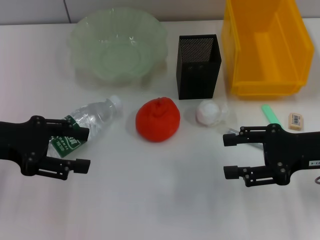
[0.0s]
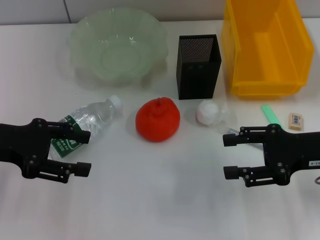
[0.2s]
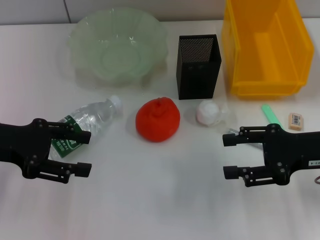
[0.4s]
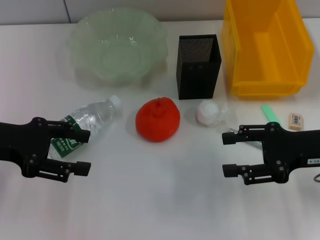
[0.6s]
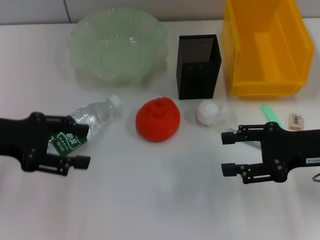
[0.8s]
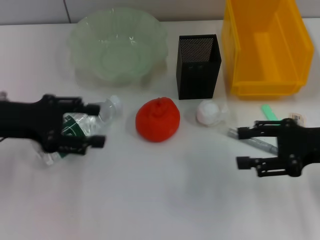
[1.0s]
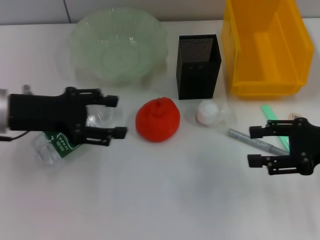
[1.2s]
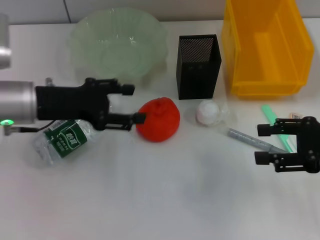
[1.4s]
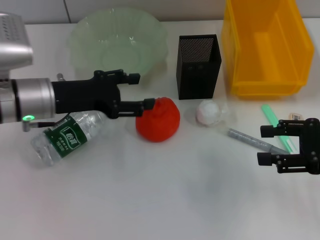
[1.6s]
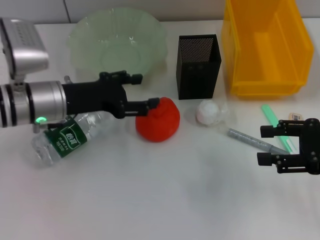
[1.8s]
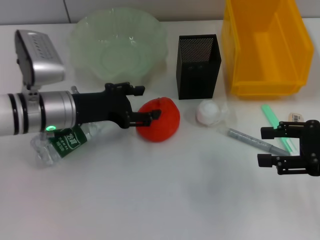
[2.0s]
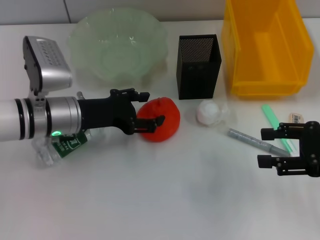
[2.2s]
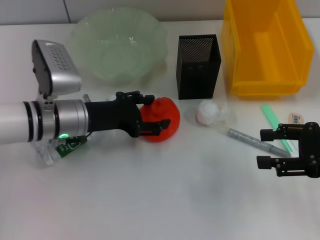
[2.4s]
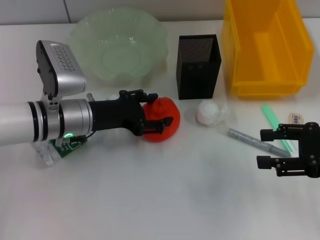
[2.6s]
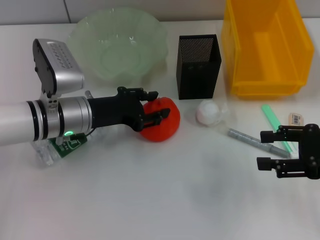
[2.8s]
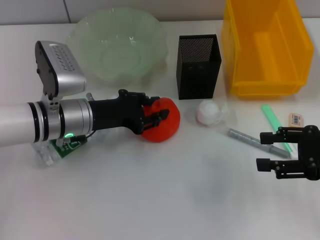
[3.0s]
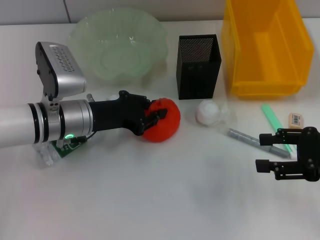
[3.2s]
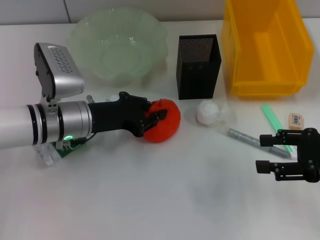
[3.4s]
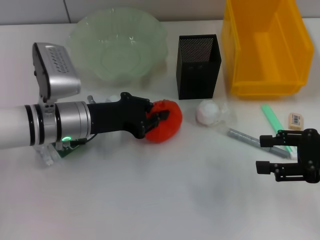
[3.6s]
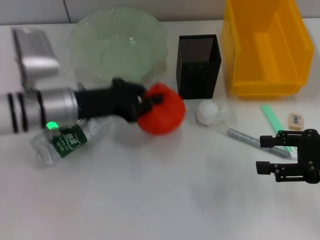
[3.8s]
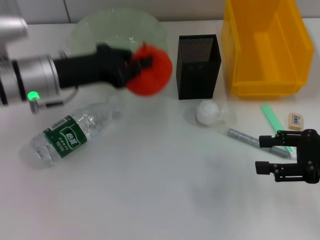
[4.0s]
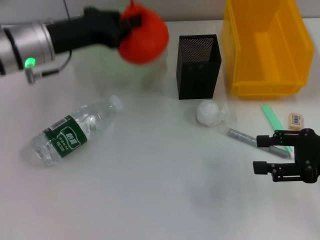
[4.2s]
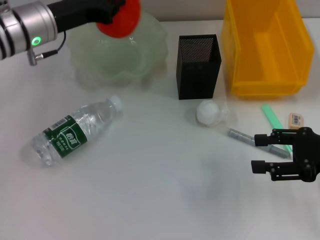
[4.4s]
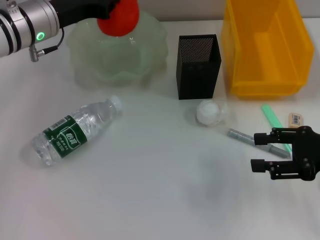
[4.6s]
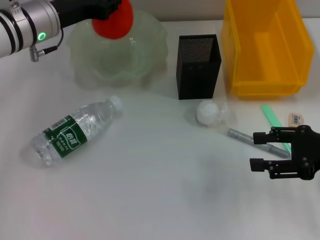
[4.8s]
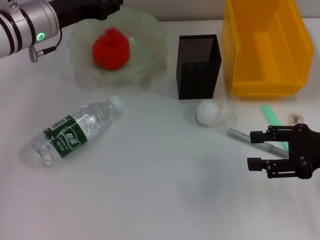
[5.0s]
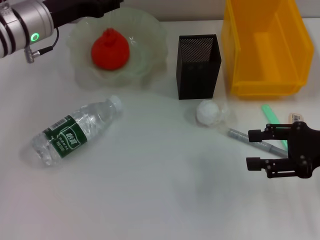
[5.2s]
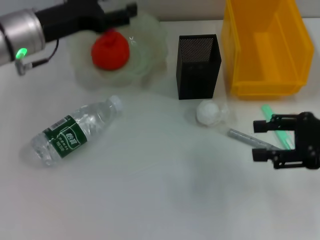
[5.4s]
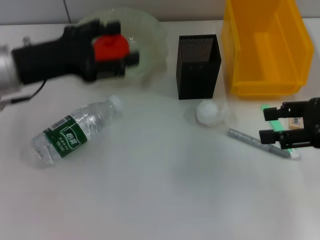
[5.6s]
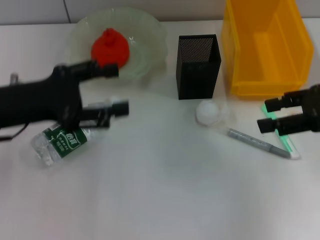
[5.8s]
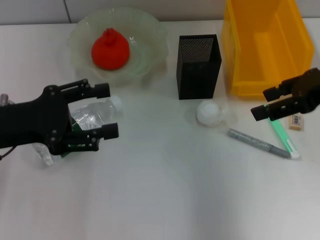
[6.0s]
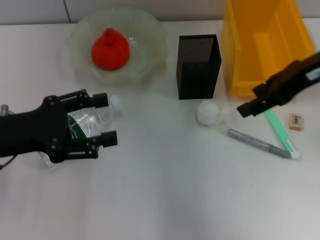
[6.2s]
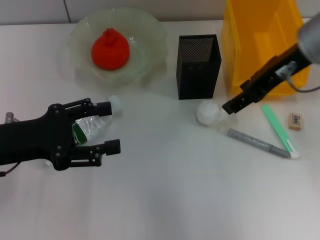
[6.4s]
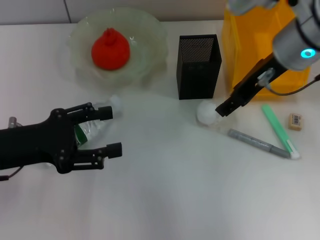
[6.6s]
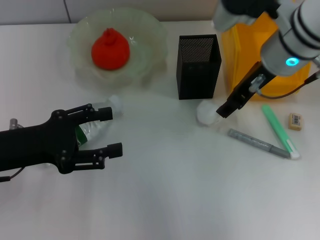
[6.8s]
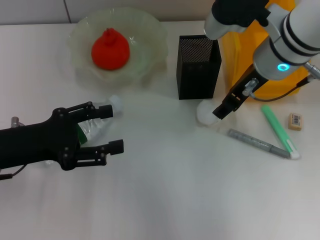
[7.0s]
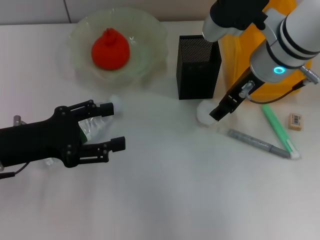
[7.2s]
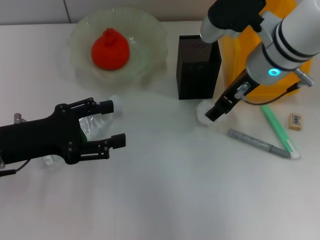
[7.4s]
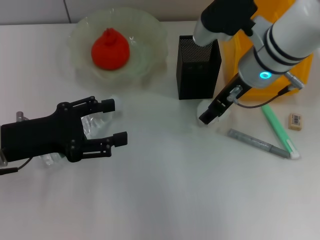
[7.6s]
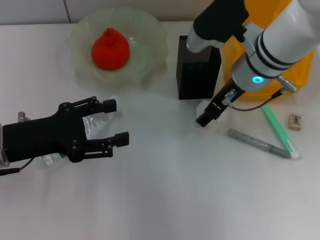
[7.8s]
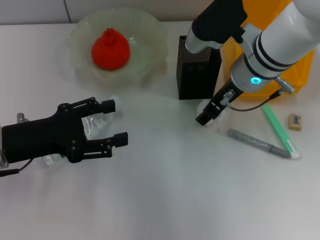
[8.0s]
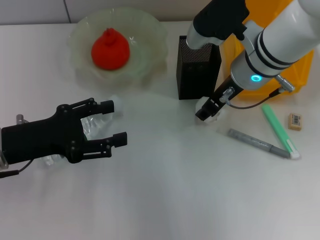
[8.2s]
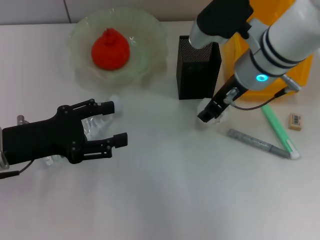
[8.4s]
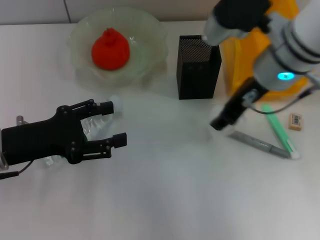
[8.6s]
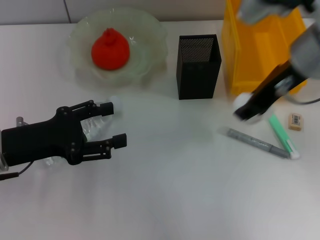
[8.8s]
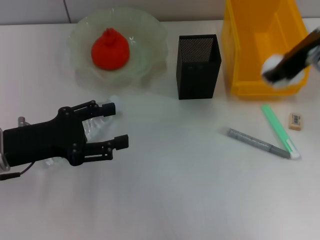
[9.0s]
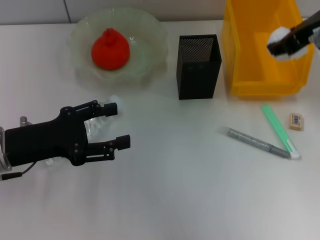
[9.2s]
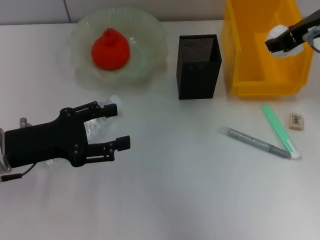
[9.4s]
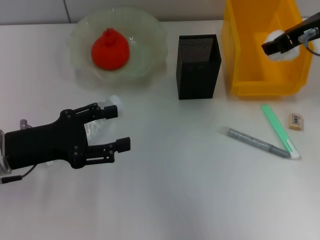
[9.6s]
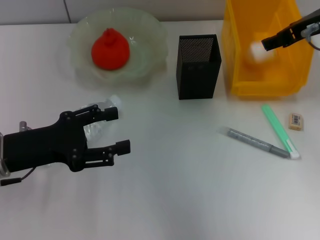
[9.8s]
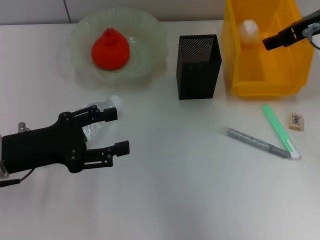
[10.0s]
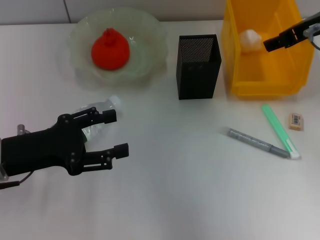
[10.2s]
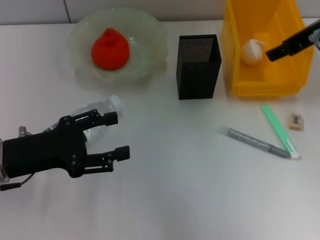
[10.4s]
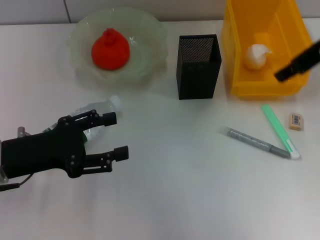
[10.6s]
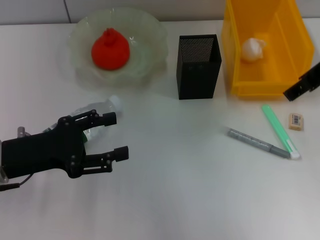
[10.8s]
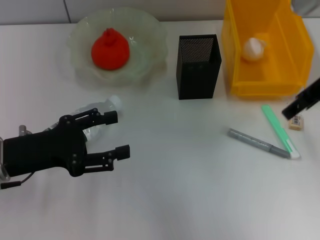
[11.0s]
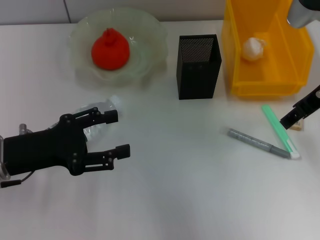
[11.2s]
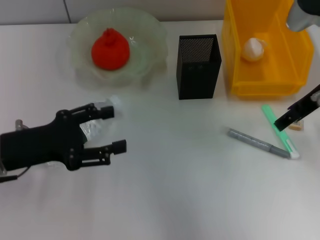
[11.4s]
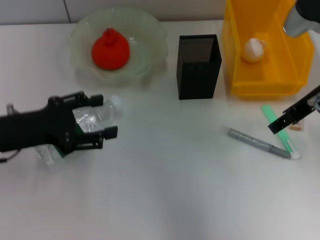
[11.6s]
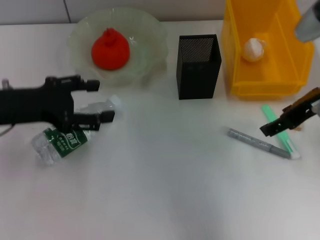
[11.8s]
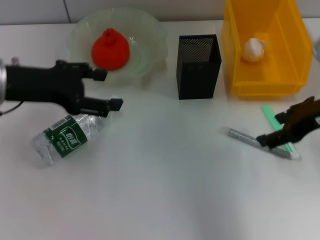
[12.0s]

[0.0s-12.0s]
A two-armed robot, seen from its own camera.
Step, 0.0s to 3.2s: Grab the orange with the left hand.
Step, 3.6s to 4.8s: Place the orange into the fruit bowl with the left hand.
Step, 5.2s to 8.0s: Grab the paper ball with the right hand.
Step, 8.2s to 9.8s: Place the paper ball into the trash can with the right hand.
0.0s to 1.6s: The left gripper travels to the right and forward by about 10 cm.
1.6s to 3.0s: The left gripper ends up roughly 5 cm from where it was.
3.0s to 4.4s: The left gripper goes about 10 cm upward and forward, and closes its fingers.
4.4s to 6.0s: The right gripper goes some 15 cm upward and forward, while the left gripper travels backward and to the left by some 15 cm, and opens its fingers.
6.0s to 7.6s: The right gripper heads to the left, downward and forward, covering roughly 15 cm.
7.6s to 9.0s: The right gripper moves upward and to the right, approximately 15 cm.
9.0s to 10.4s: The right gripper opens its fingers.
10.4s to 12.0s: The left gripper travels upward and forward by some 10 cm, while the right gripper moves downward and backward, some 10 cm.

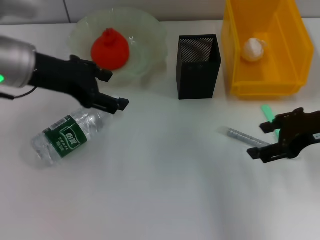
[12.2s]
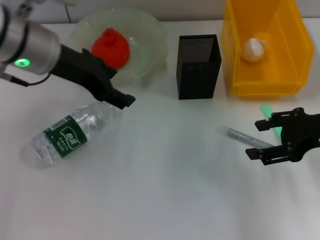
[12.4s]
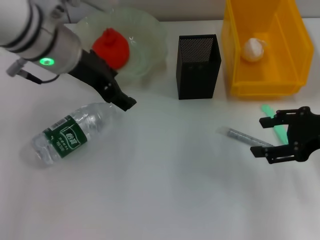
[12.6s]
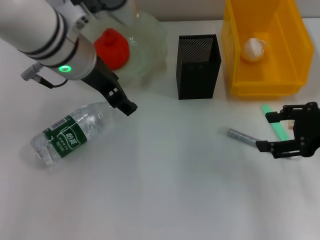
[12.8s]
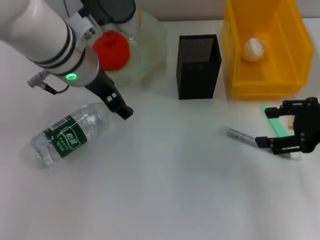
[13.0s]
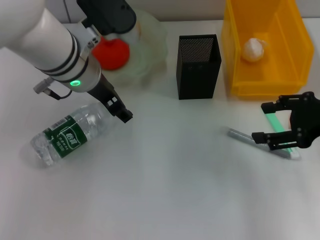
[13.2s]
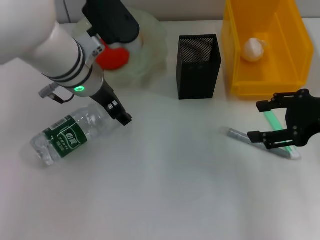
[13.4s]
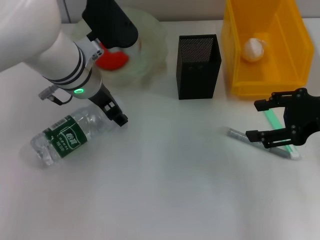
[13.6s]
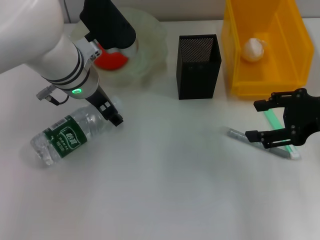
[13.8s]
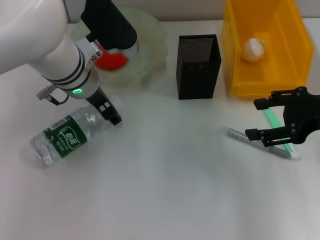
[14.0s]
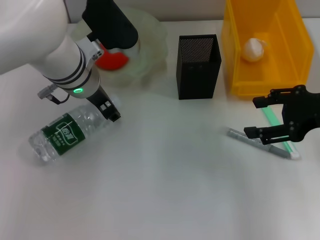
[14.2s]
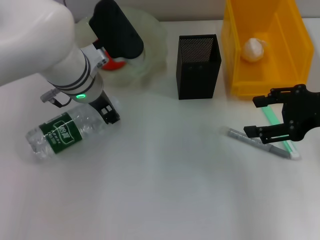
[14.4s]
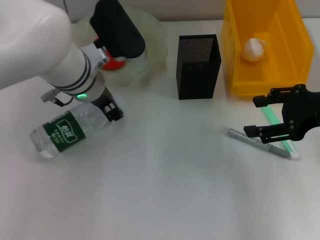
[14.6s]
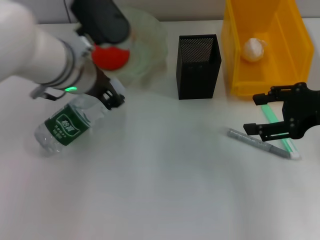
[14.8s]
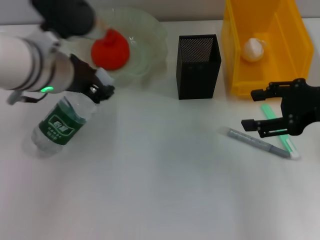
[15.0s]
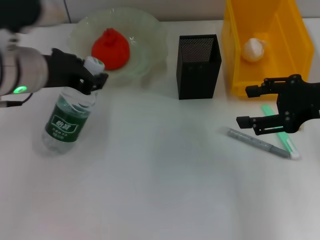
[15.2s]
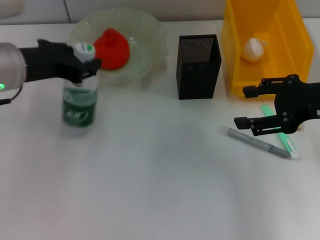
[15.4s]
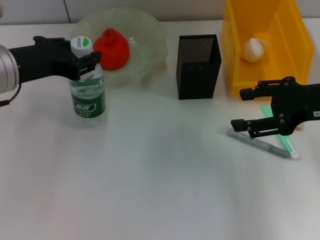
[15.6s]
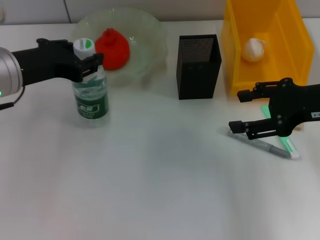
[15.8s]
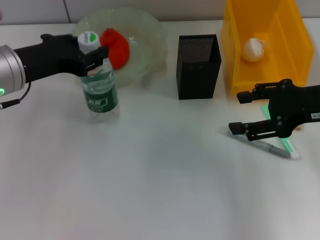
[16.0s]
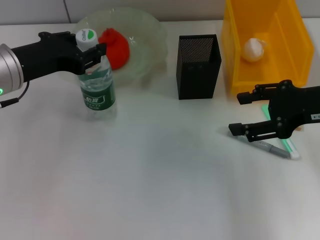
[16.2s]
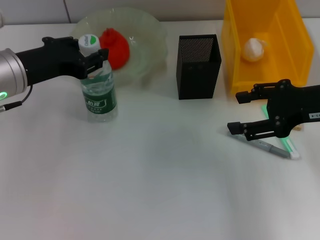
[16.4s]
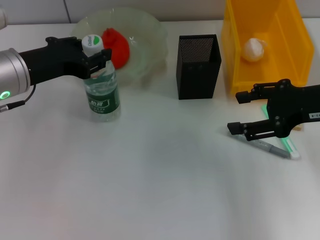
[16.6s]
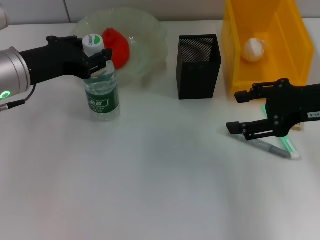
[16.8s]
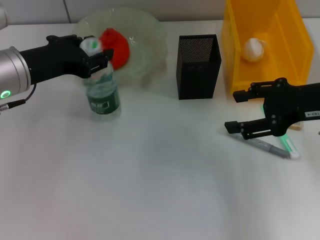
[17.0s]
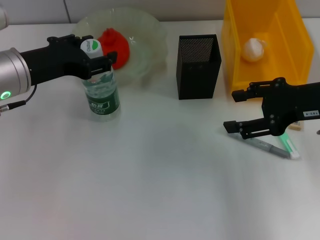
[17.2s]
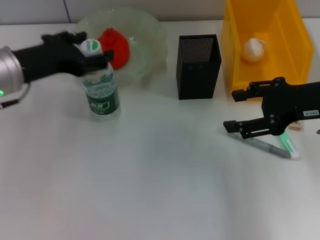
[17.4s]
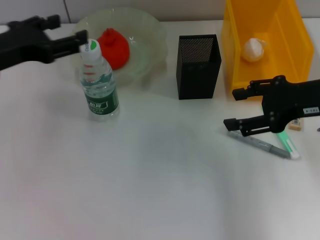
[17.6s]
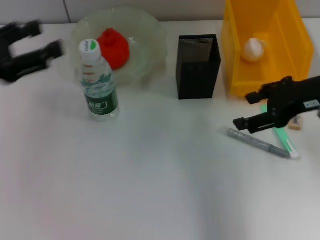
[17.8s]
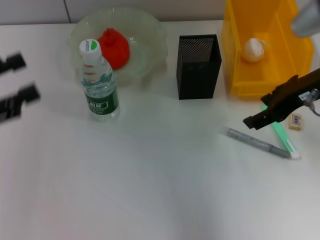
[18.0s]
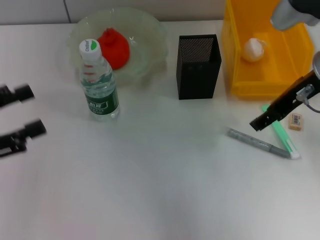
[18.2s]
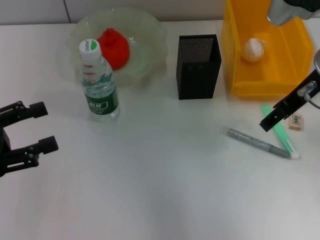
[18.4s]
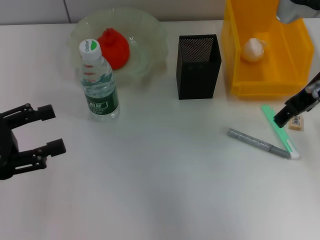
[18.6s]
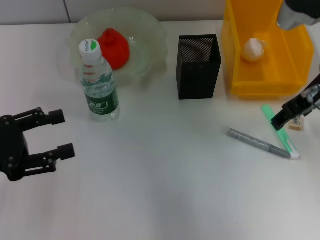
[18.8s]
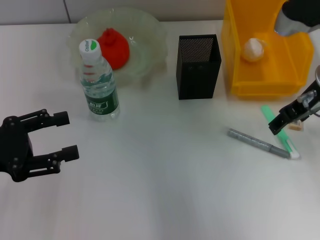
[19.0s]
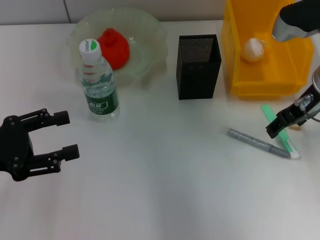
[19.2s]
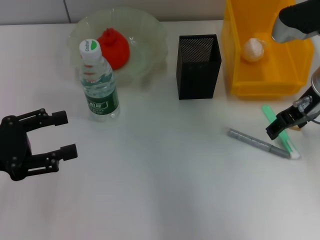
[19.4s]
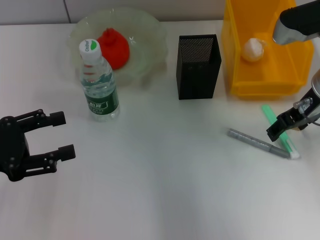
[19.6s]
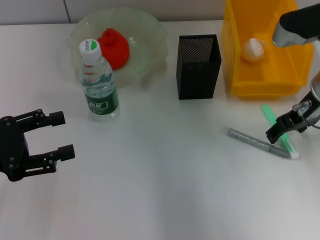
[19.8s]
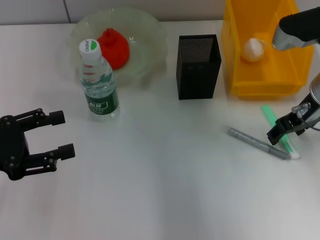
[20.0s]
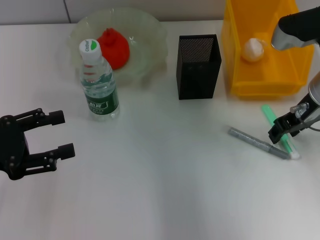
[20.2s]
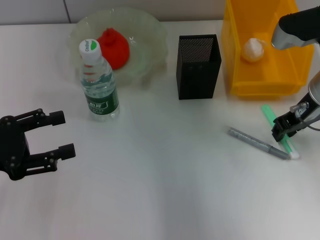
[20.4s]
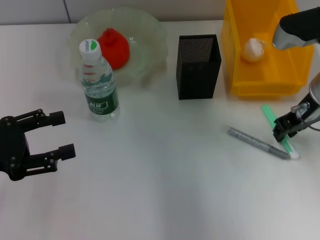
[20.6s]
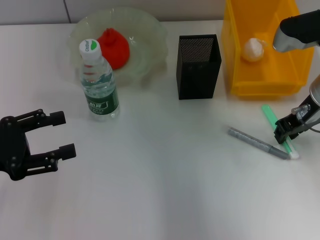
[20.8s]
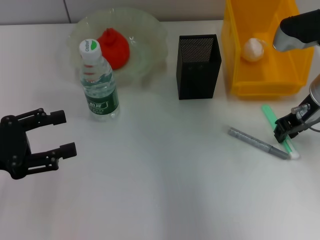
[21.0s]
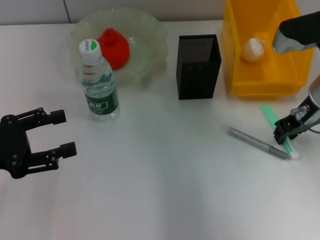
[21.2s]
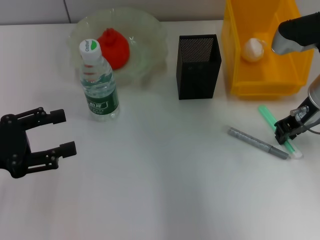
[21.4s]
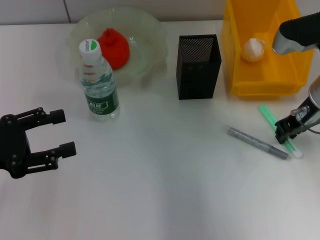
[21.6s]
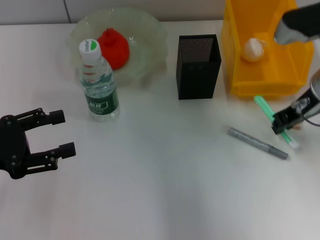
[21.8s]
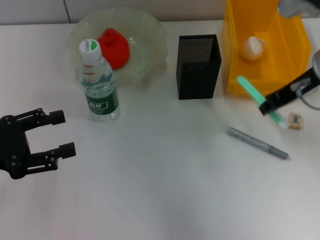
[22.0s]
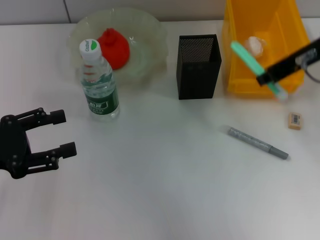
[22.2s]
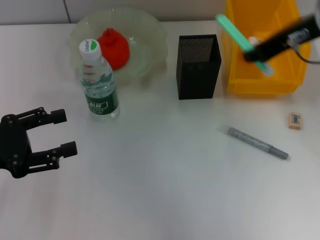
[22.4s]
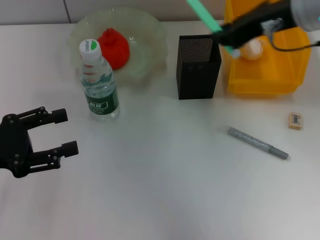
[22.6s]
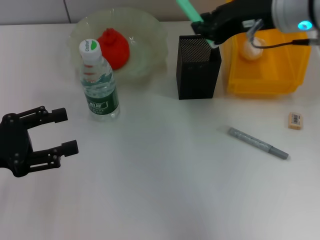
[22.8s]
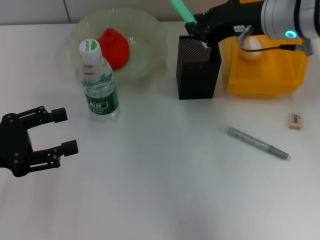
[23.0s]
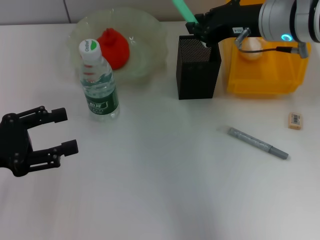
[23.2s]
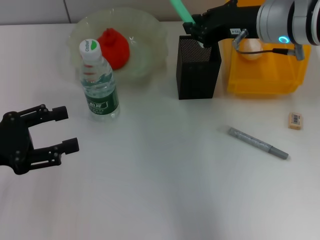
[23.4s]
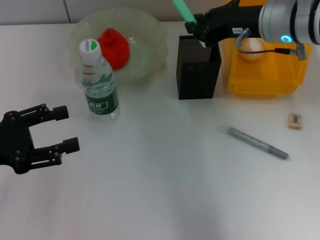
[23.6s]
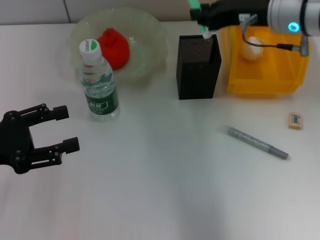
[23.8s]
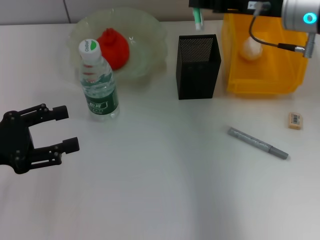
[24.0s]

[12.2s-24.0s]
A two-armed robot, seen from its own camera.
Step, 12.2s to 14.4s: Grab the water bottle with the left hand.
Step, 14.6s to 17.0s: Place the water bottle on the table with the left hand.
Step, 17.4s to 21.4s: Grab the blue utility knife with the right hand.
12.2s to 13.6s: The left gripper shifts about 10 cm to the right and downward.
13.6s to 15.2s: The left gripper shifts approximately 10 cm to the left and backward, and closes.
16.6s to 18.2s: The left gripper is displaced to the left and backward by some 15 cm, and opens its fingers, while the right gripper heads to the left, covering approximately 5 cm.
18.2s to 19.6s: The right gripper ends up some 5 cm from where it was.
19.6s to 21.0s: The right gripper closes.
21.0s to 22.6s: The right gripper moves upward and to the left, some 10 cm.
22.6s to 24.0s: The right gripper is displaced downward by roughly 5 cm.
